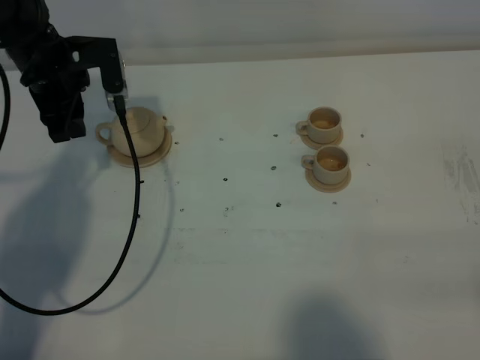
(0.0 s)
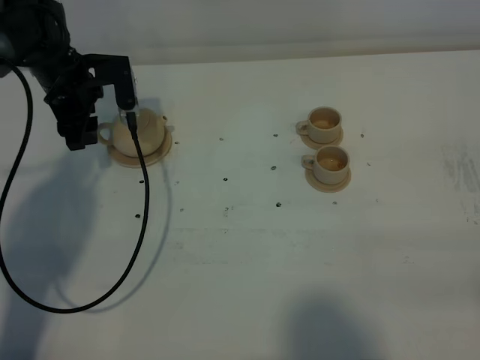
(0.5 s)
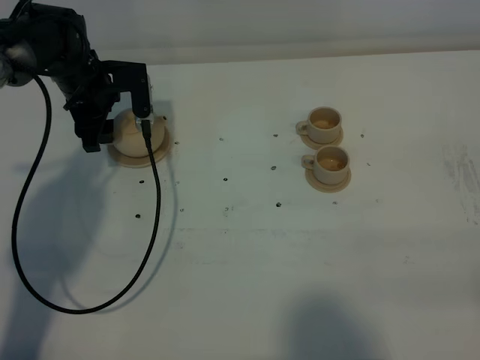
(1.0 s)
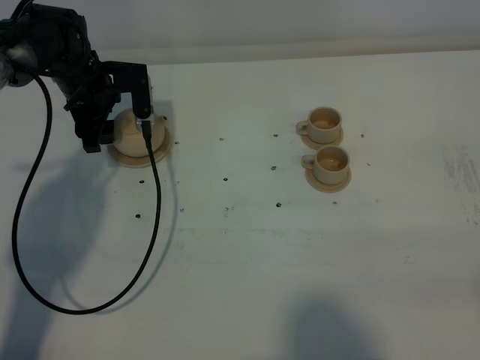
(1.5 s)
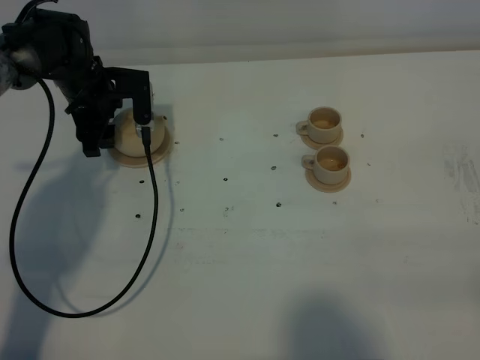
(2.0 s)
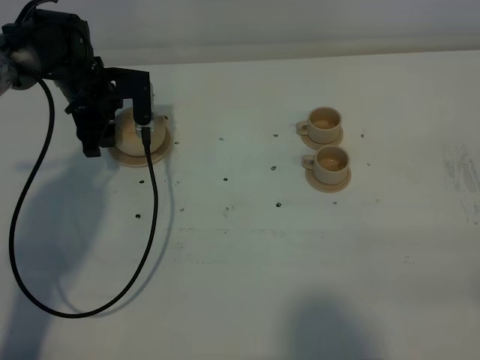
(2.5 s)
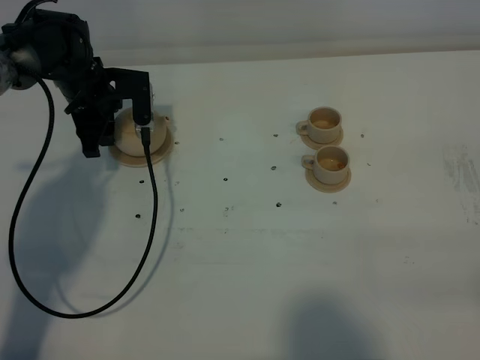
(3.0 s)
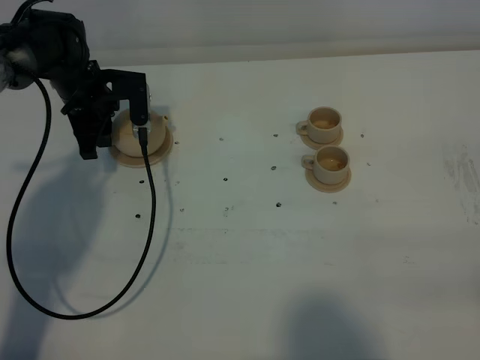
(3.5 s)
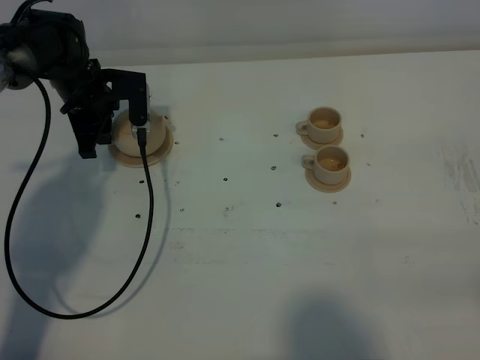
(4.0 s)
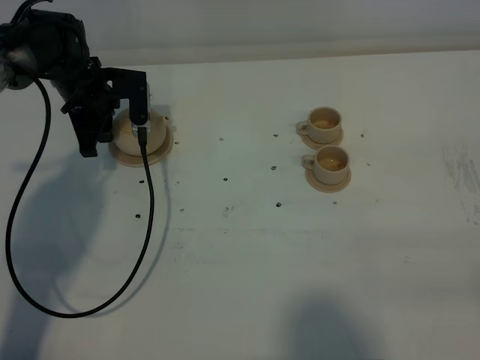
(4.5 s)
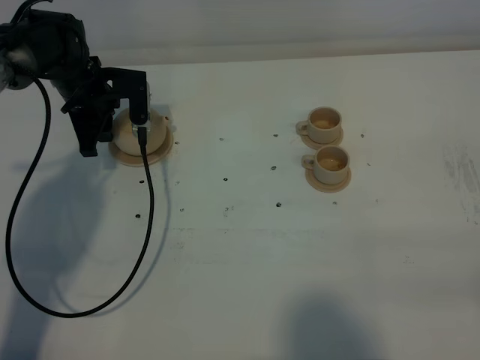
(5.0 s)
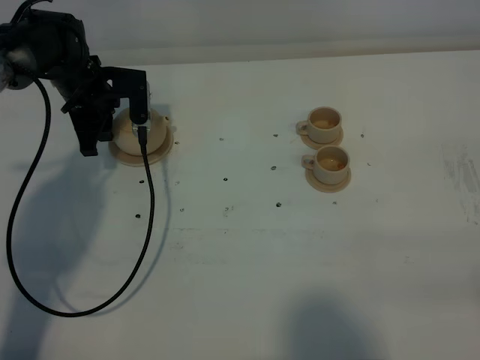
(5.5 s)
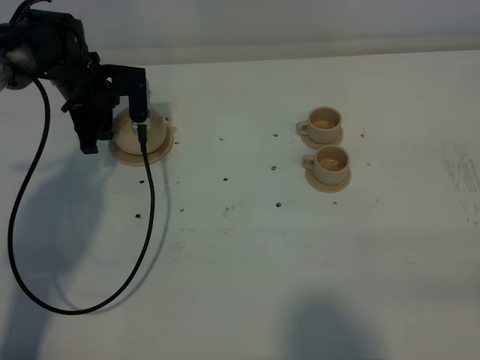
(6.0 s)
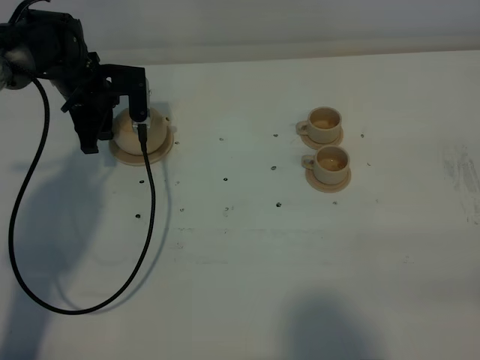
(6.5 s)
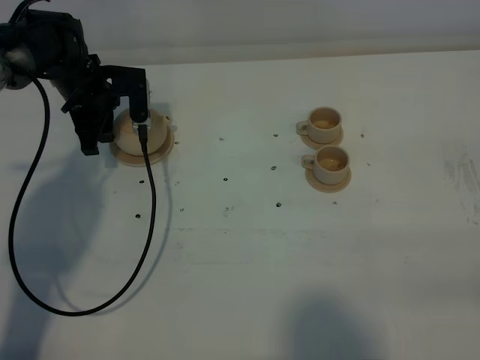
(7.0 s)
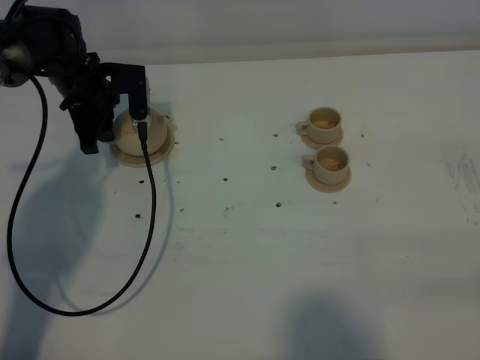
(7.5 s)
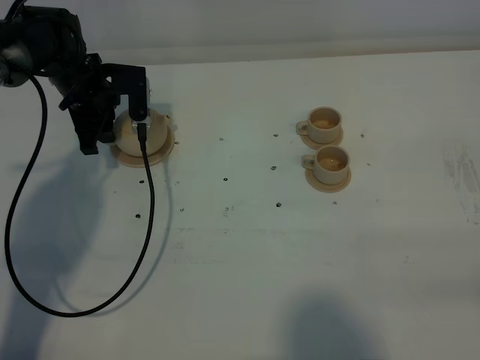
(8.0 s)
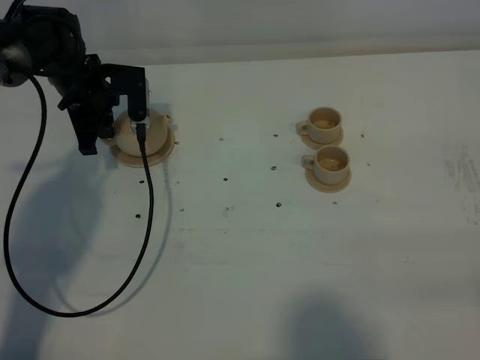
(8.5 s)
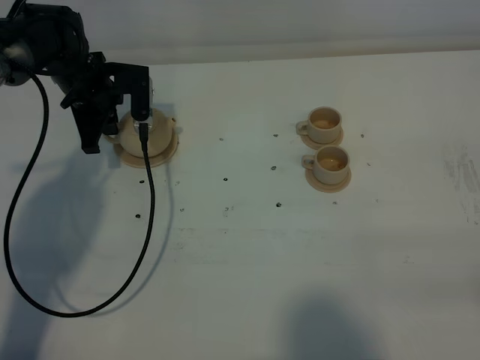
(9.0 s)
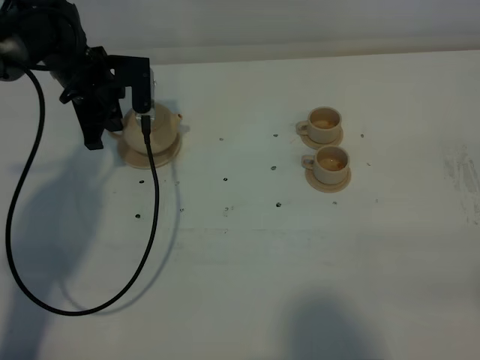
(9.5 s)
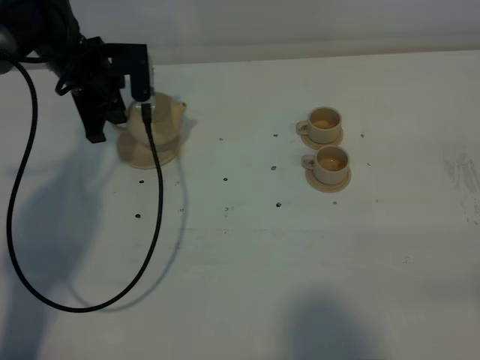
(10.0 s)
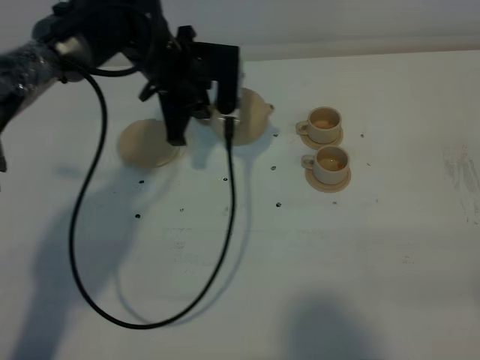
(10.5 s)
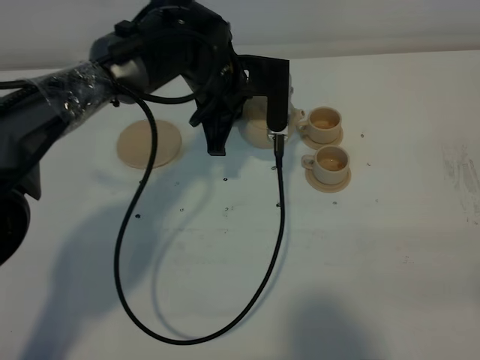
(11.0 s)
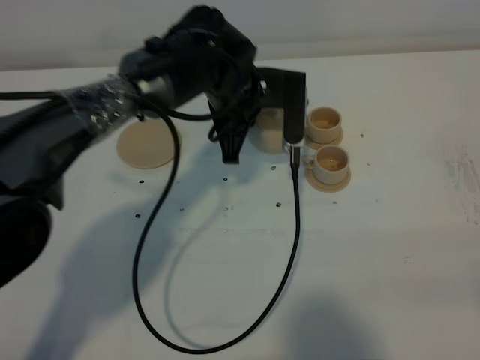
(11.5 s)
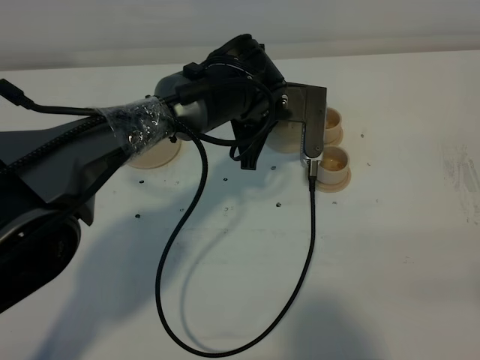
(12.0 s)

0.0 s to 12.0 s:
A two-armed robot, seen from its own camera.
Task of the whole recording: grasp the brown teapot and pour the tea into the two brown teacups one by one, put the brown teapot back in its original place.
Step, 0.0 to 9.5 s: Pick up the teapot with the left gripper.
0.0 to 2.0 s: The left gripper travels downward by some 5 cm.
2.0 to 4.0 s: The left gripper closes up.
4.0 to 8.0 s: Neither gripper changes place.
8.0 to 10.0 s: The left gripper closes its fingers.
10.0 to 12.0 s: The left gripper heads to the right, covering approximately 20 cm.

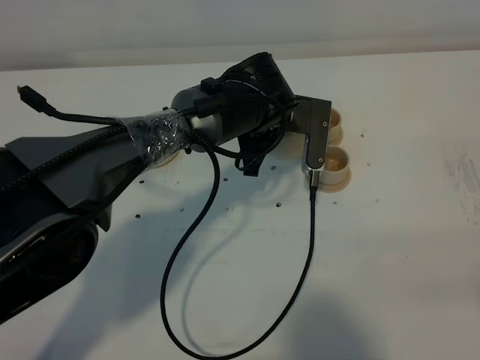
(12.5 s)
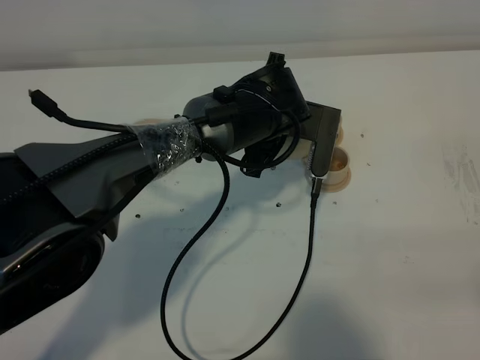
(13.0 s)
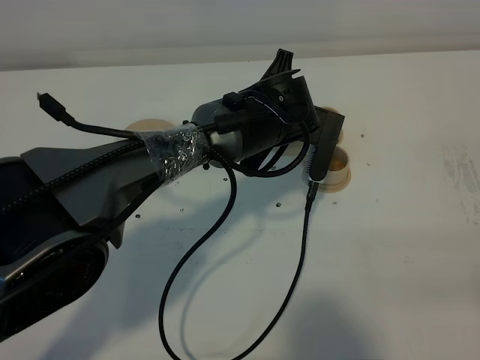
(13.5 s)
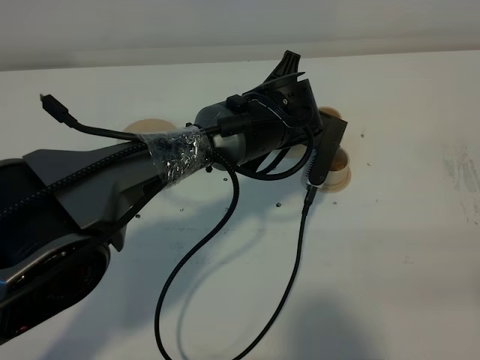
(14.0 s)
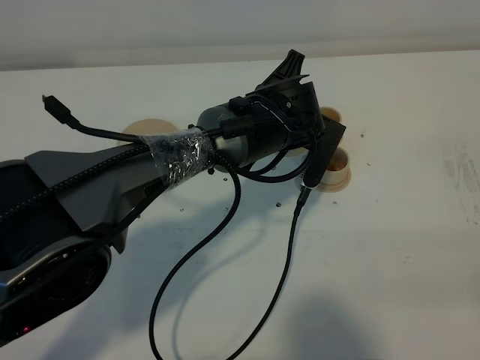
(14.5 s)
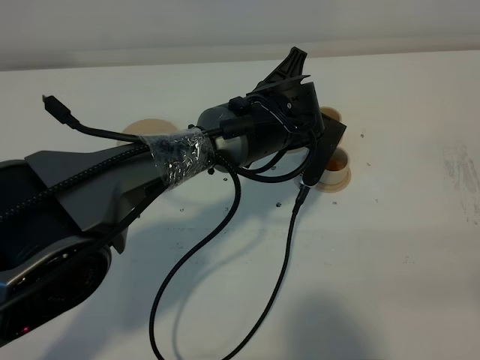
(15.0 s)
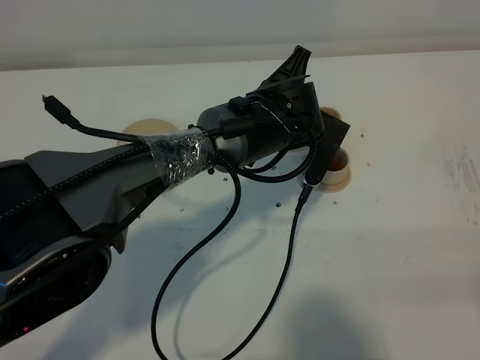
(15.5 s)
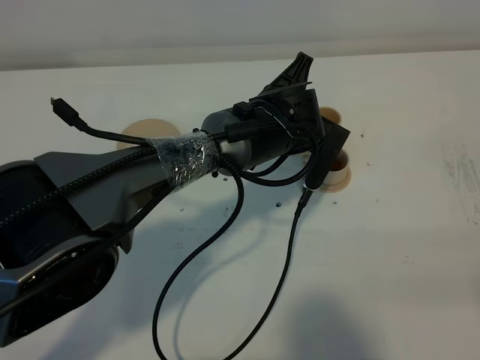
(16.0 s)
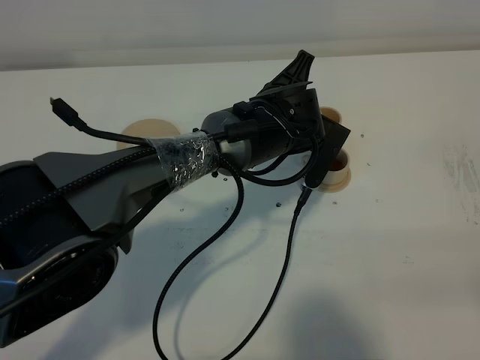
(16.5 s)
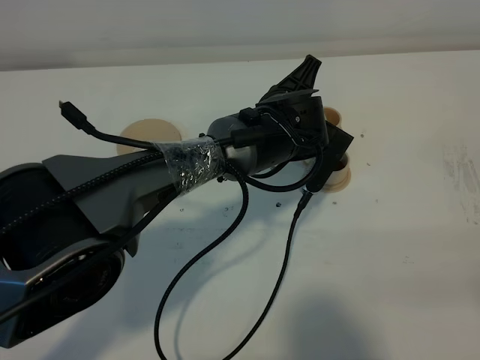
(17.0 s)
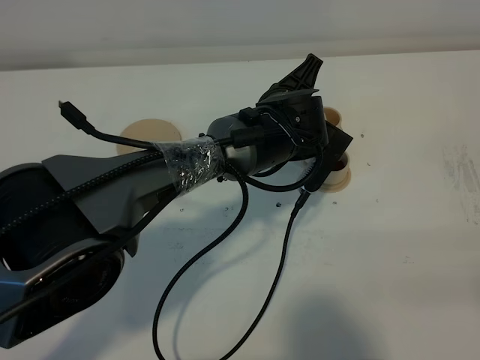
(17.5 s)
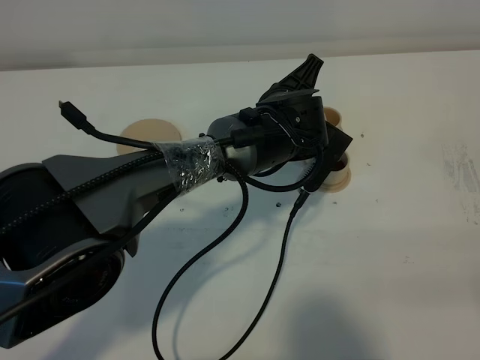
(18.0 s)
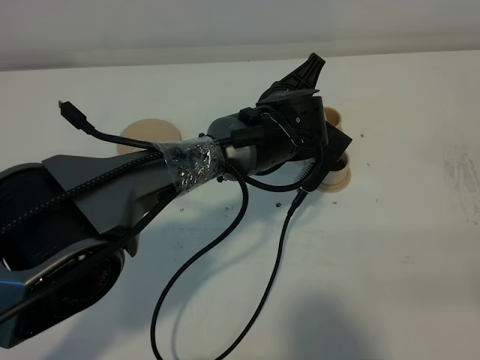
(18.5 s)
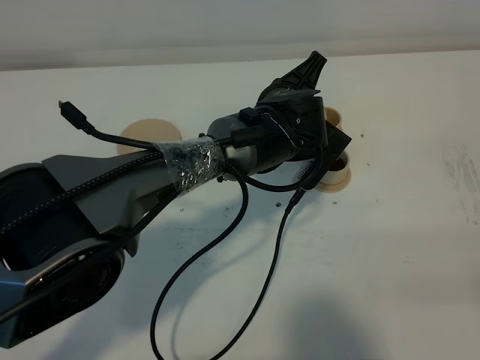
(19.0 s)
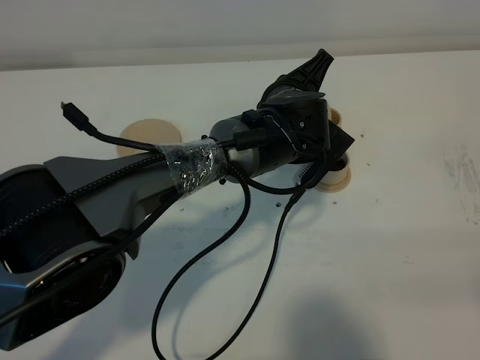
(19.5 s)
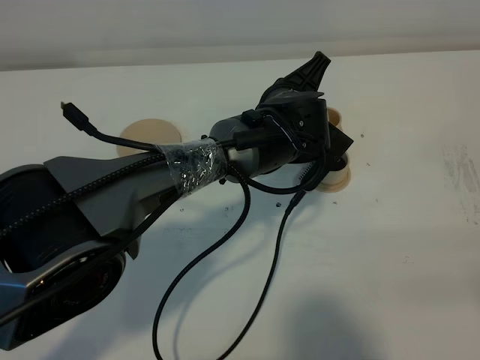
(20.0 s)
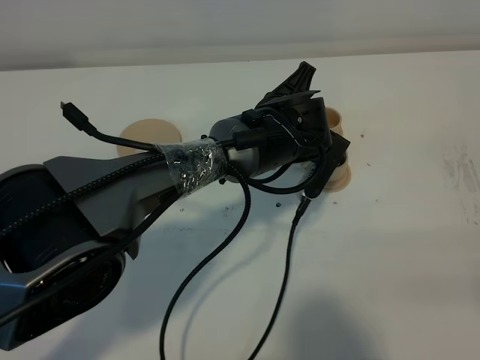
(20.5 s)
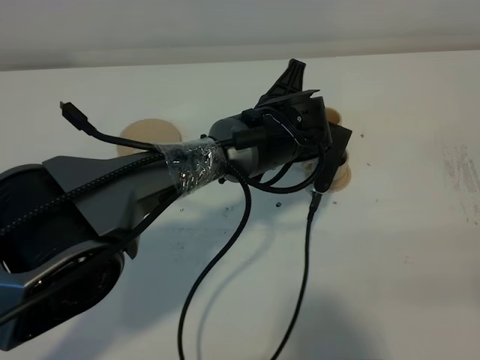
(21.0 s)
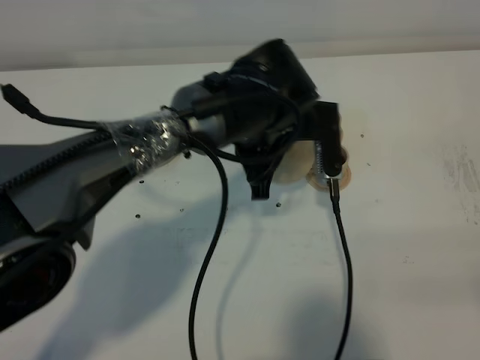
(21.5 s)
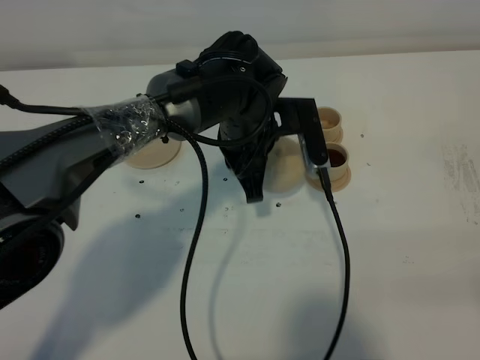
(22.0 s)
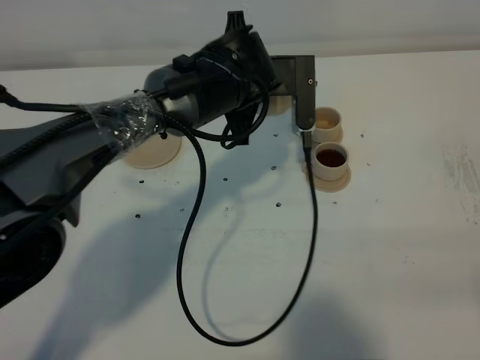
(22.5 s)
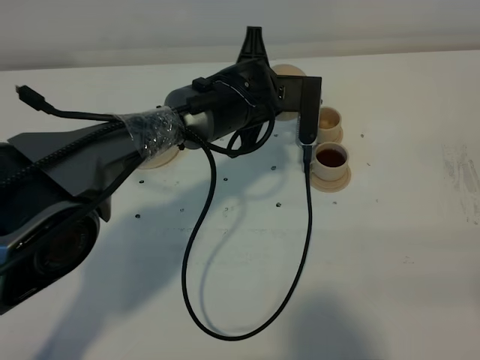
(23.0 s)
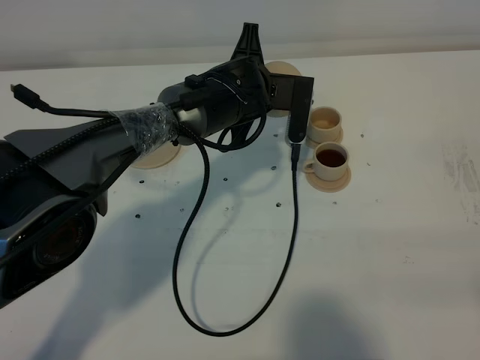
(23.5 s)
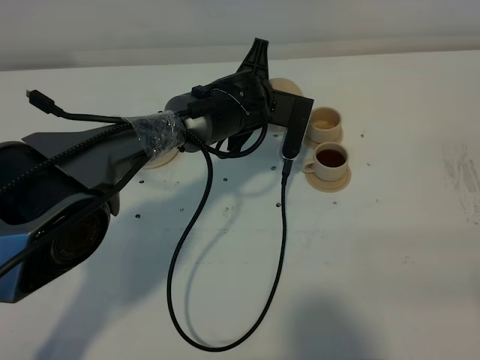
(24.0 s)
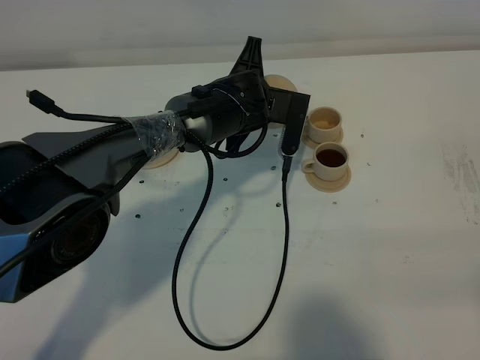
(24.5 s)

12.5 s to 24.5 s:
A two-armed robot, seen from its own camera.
Task of the whole recording: grasp the brown teapot and pour the tea into the two brown teacups one by one, put the brown teapot back in its original place.
Step, 12.5 to 20.5 s: Pour tea into the teacup with the left gripper.
14.5 to 16.5 s: Neither gripper changes place.
16.5 to 20.5 s: The grippers make only small movements.
20.5 to 22.5 s: The left gripper shifts by roughly 5 cm.
22.5 to 24.5 s: The left gripper is displaced downward by about 5 cm.

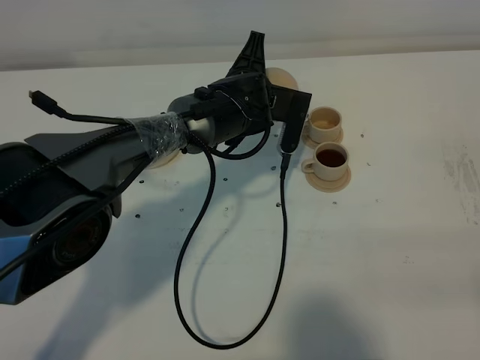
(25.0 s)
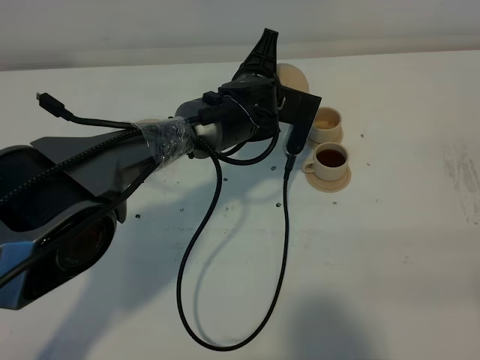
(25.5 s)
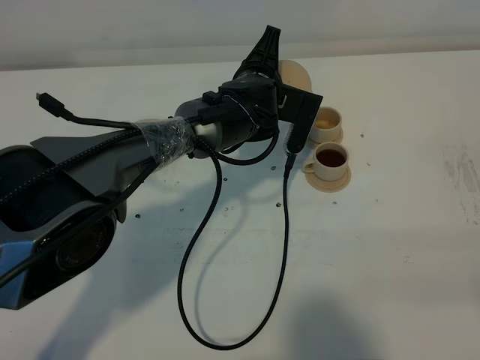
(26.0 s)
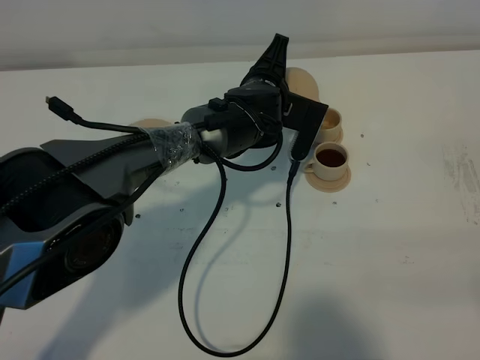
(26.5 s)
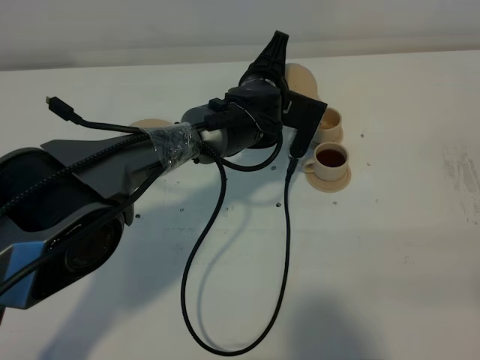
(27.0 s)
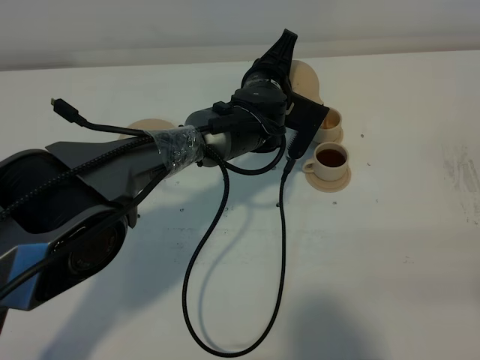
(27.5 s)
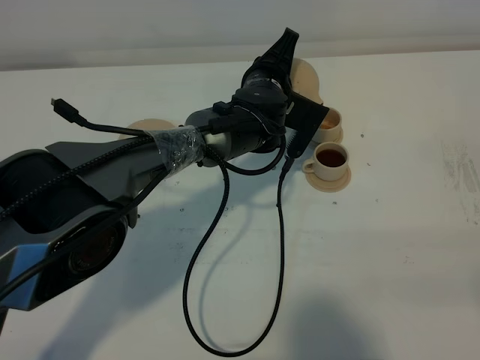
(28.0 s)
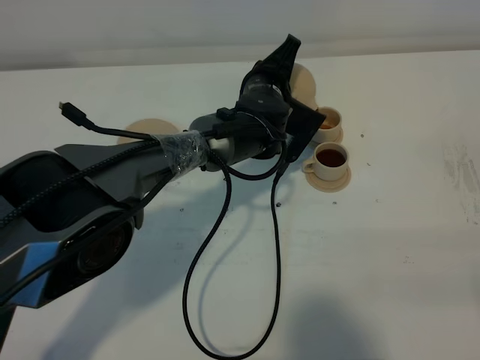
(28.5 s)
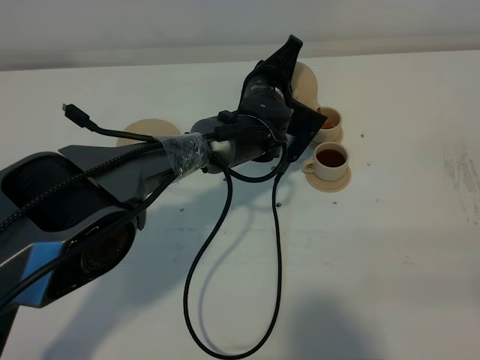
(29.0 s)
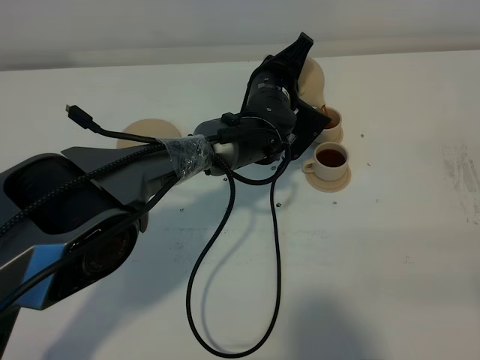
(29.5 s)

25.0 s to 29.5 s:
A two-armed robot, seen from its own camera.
Task of the whole recording: grasp the brown teapot and pour the tea into the two brown teacups one by one, put the brown teapot back in its original place.
25.0 to 27.0 s: The grippers make only small movements.
27.0 to 29.5 s: There are only small adjustments of the grippers.
